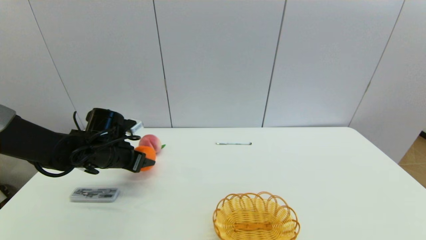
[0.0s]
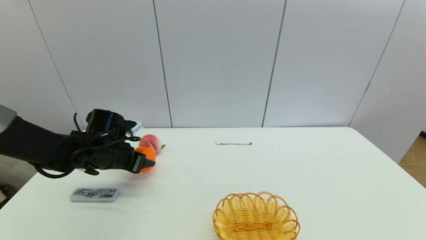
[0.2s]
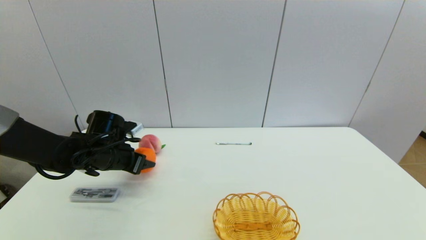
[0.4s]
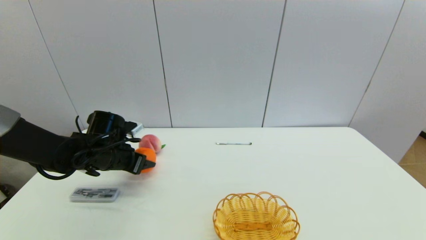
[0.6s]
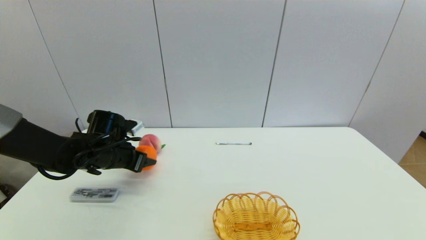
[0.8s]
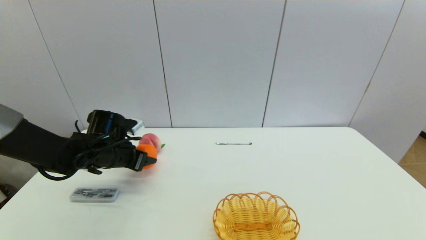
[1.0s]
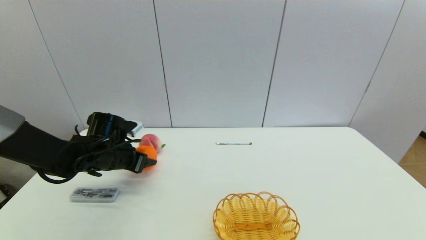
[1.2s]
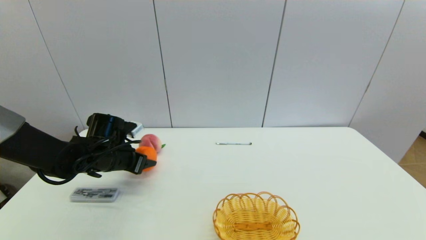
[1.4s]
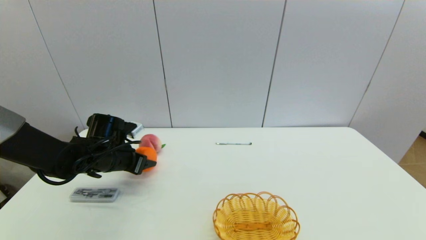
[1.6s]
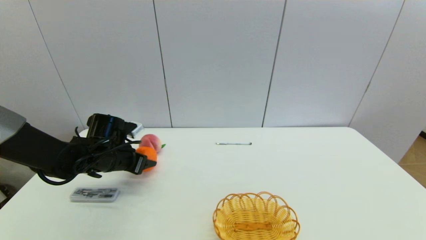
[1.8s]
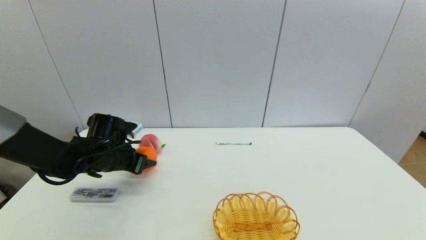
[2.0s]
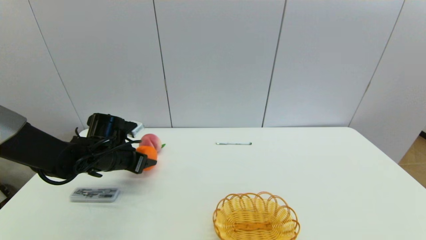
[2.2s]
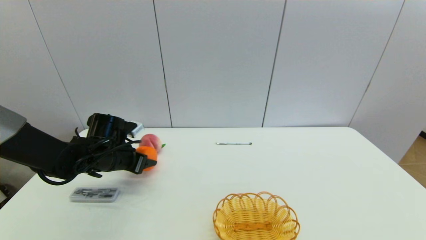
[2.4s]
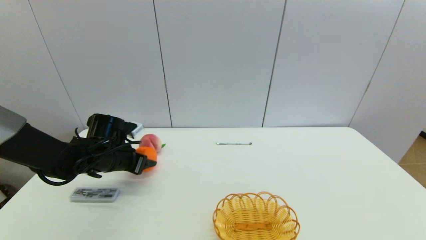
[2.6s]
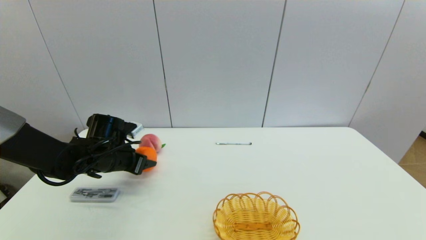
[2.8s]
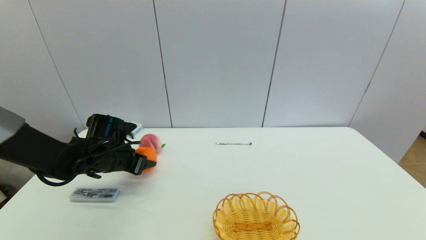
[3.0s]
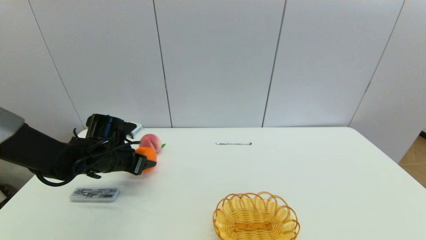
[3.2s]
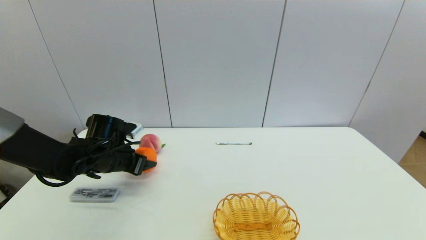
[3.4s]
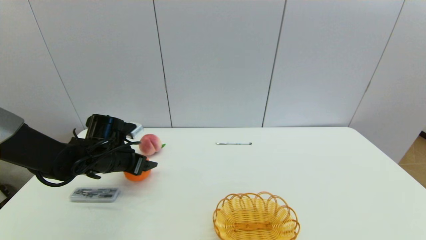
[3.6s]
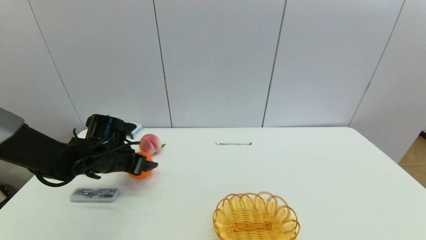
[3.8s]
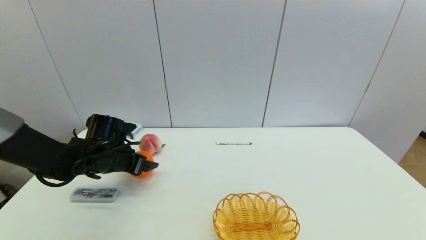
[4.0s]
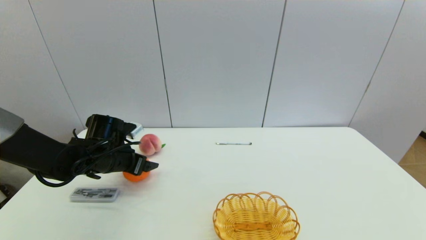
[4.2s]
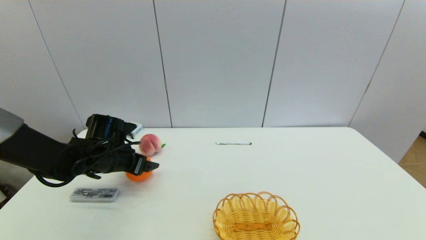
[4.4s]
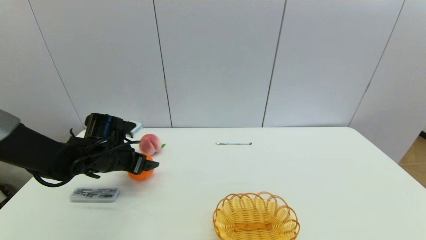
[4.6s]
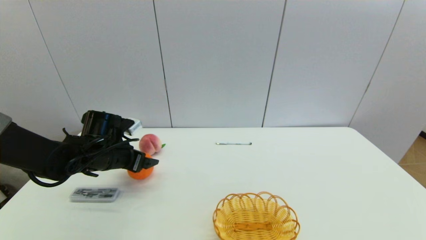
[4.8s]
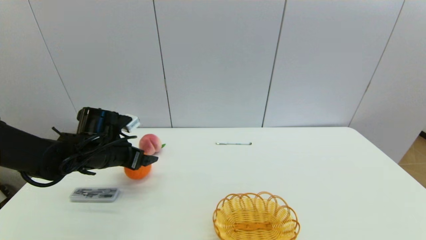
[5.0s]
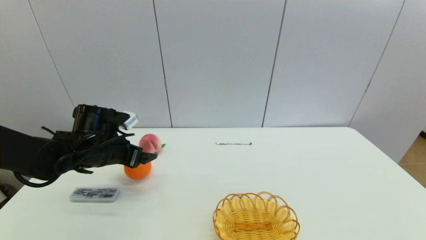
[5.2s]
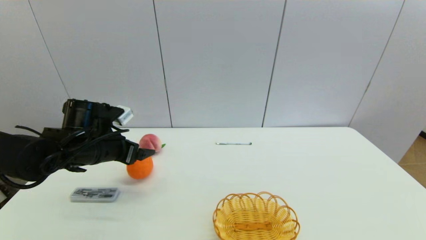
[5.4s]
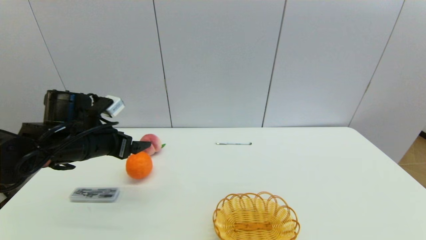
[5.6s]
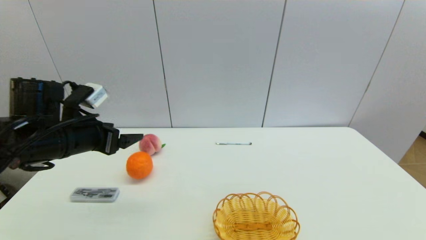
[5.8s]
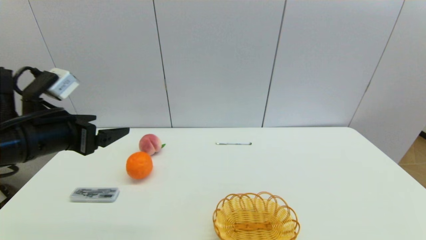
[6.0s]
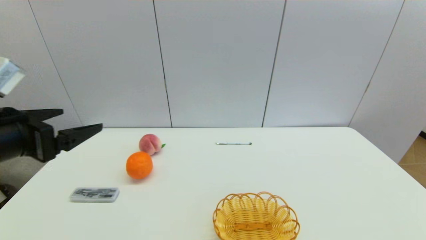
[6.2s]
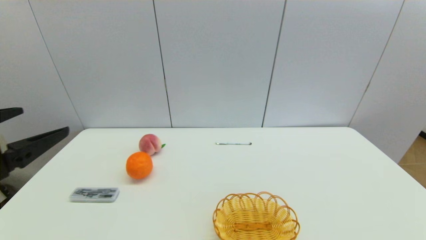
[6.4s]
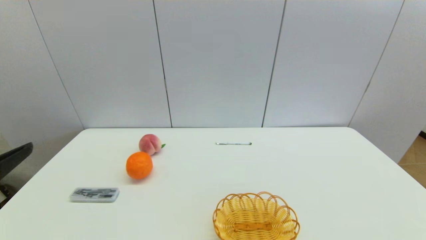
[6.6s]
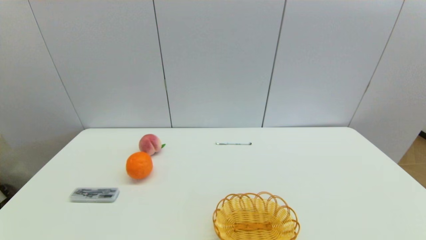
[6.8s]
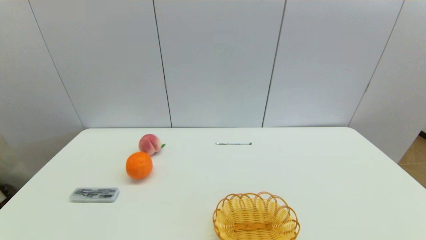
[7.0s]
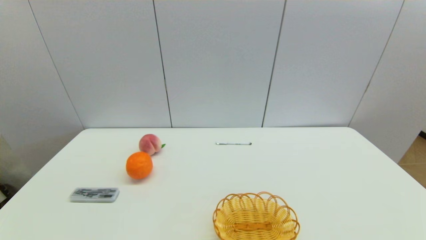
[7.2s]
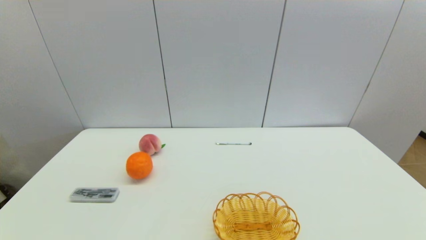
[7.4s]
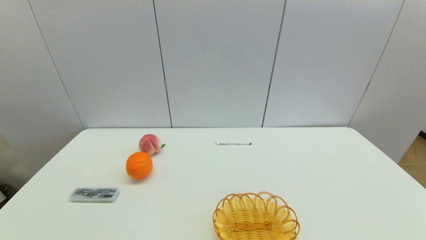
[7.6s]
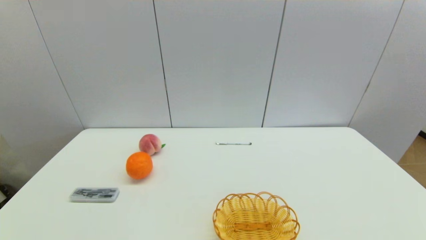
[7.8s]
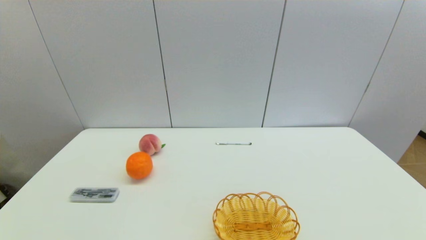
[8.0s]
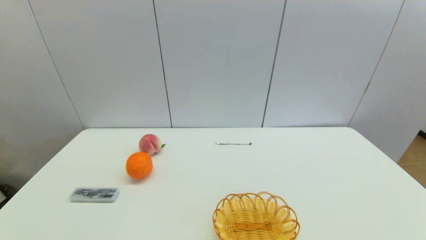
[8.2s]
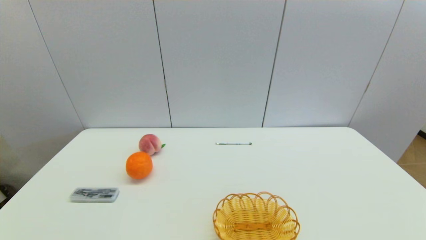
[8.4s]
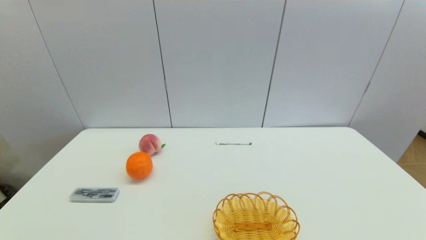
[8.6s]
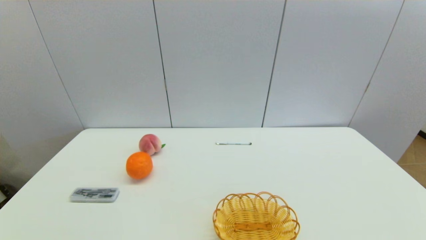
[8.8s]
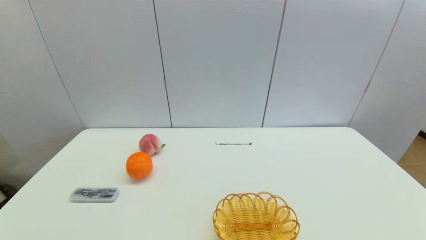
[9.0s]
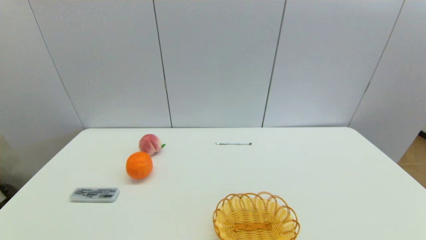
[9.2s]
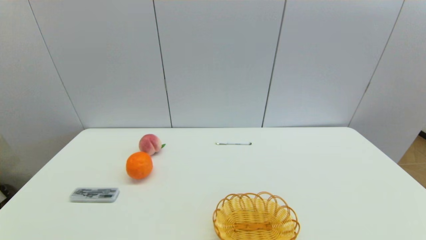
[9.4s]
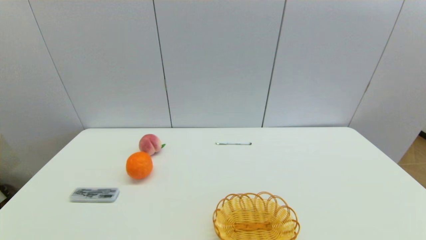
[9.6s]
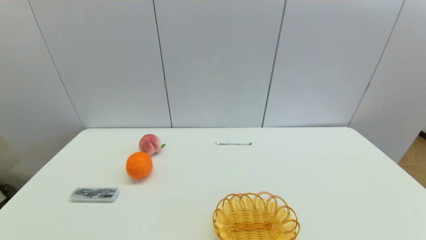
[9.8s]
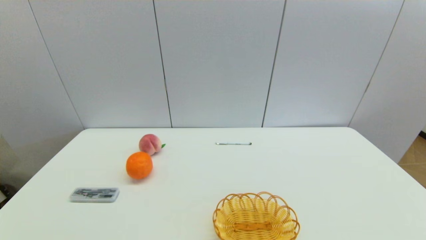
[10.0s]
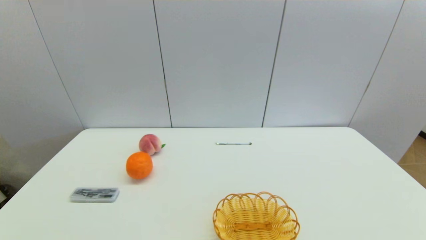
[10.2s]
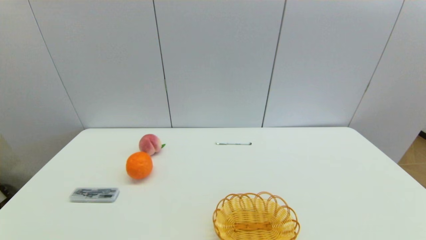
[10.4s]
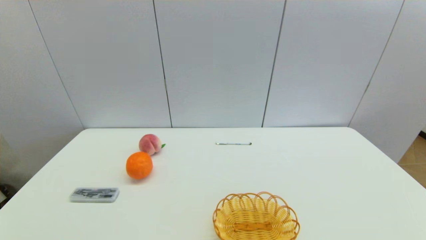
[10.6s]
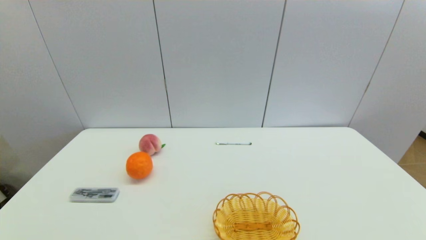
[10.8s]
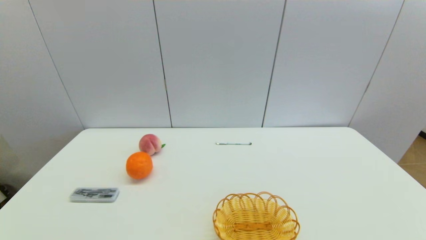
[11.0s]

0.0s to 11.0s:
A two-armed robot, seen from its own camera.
Step, 0.0s to 4.2s: Place the orange on the table with left gripper.
0.0s to 3.2s: The two grippers keep their place.
3.2s to 4.8s: The left gripper opens up.
4.8s to 6.2s: The left gripper travels backward and upward by some 25 cm.
6.2s to 7.8s: The left gripper moves downward and backward, some 25 cm.
9.4s to 11.0s: Both grippers stay about where they are.
